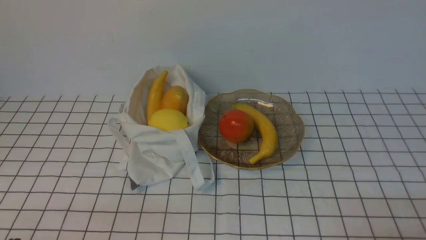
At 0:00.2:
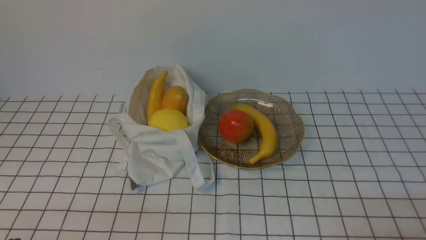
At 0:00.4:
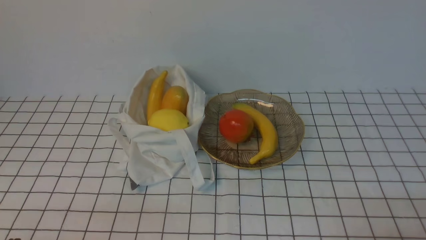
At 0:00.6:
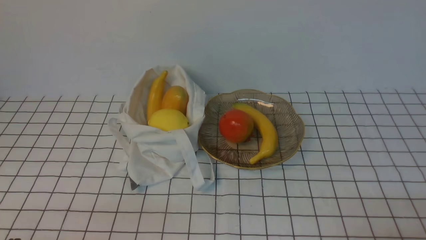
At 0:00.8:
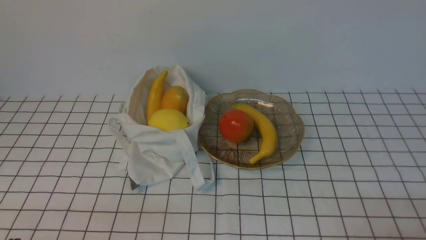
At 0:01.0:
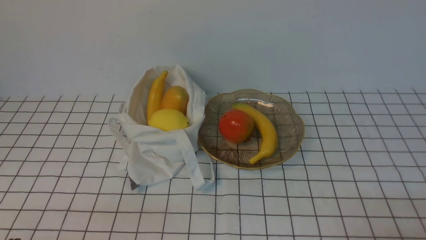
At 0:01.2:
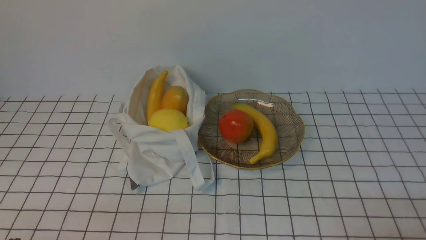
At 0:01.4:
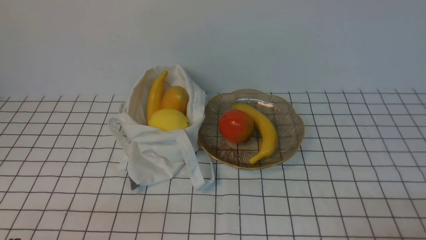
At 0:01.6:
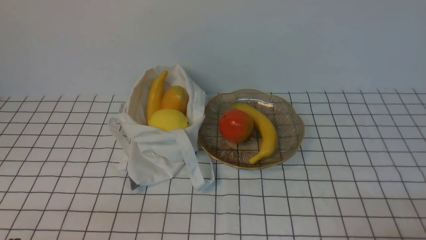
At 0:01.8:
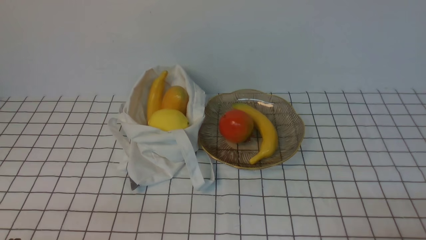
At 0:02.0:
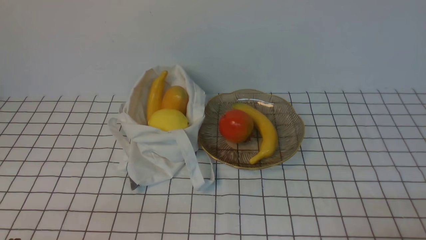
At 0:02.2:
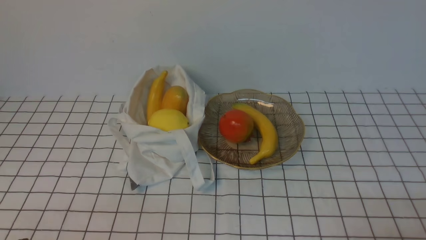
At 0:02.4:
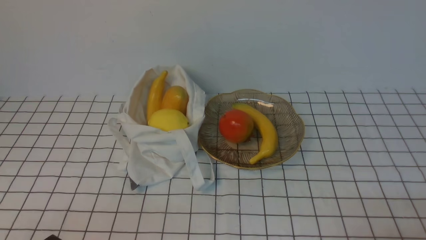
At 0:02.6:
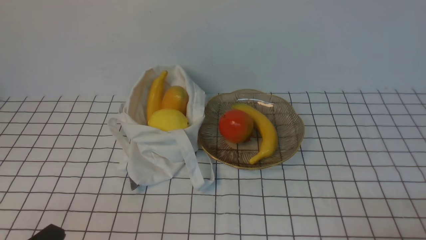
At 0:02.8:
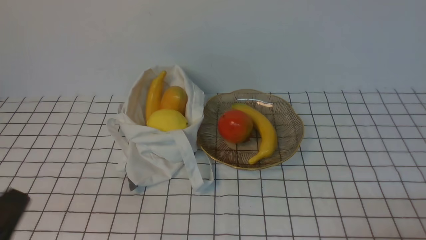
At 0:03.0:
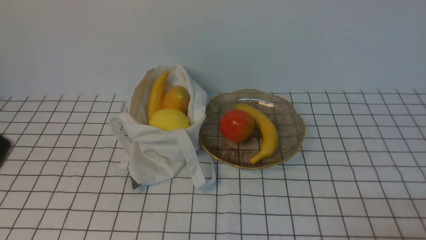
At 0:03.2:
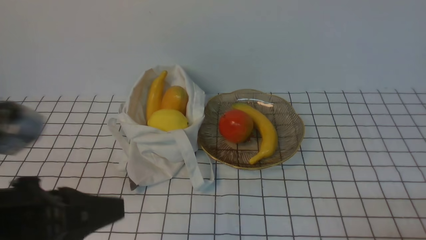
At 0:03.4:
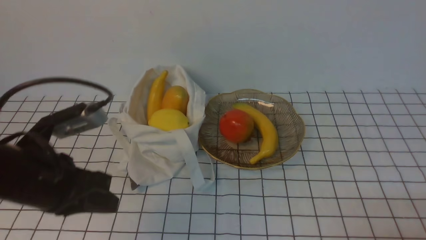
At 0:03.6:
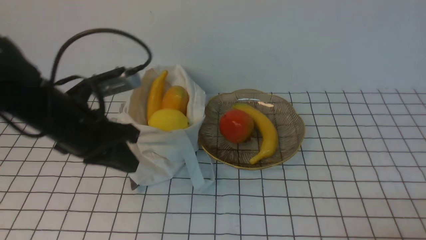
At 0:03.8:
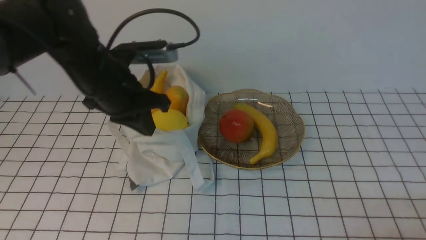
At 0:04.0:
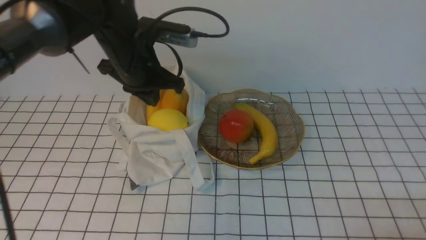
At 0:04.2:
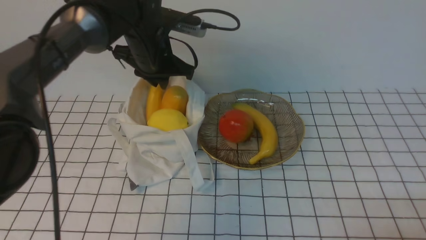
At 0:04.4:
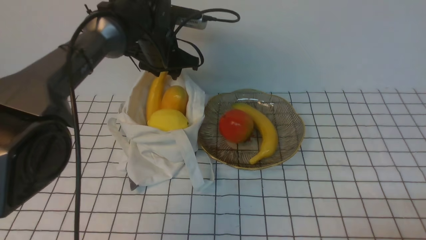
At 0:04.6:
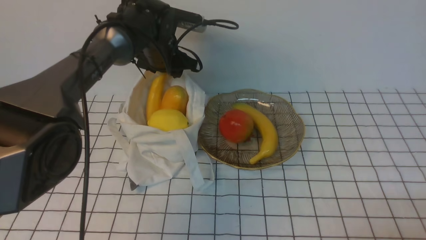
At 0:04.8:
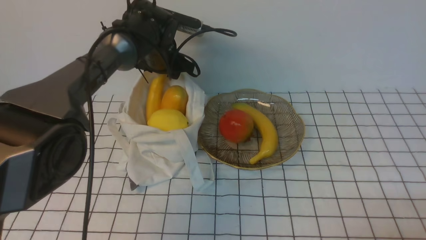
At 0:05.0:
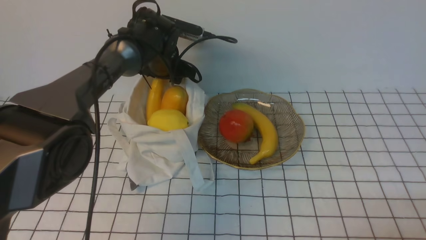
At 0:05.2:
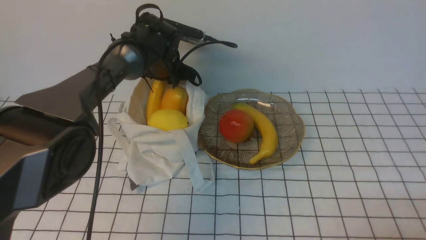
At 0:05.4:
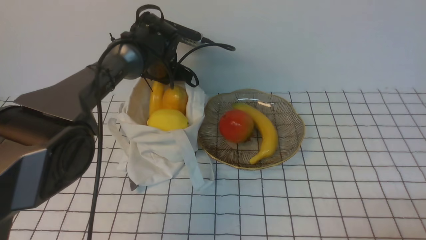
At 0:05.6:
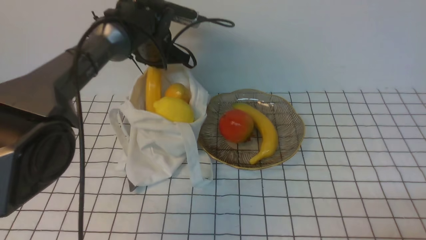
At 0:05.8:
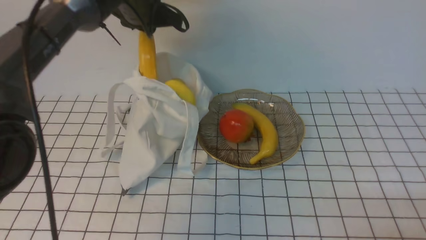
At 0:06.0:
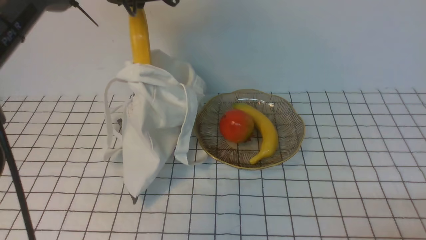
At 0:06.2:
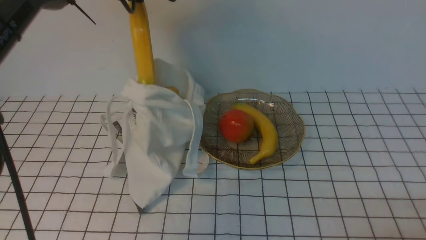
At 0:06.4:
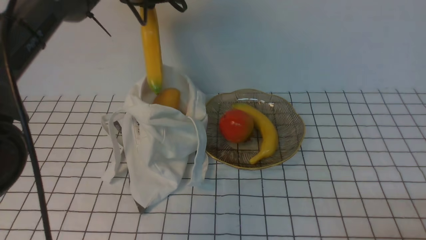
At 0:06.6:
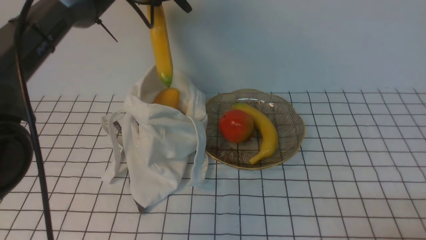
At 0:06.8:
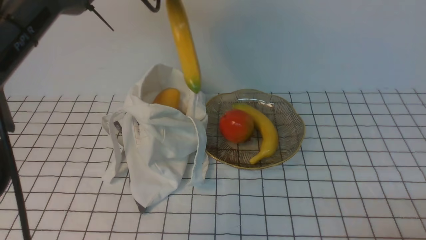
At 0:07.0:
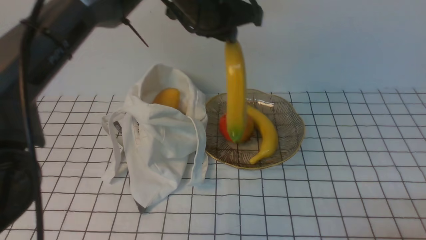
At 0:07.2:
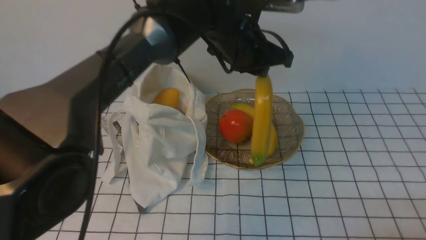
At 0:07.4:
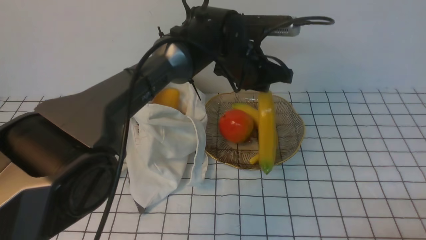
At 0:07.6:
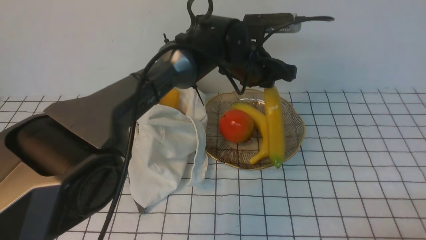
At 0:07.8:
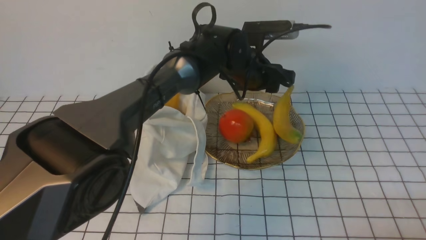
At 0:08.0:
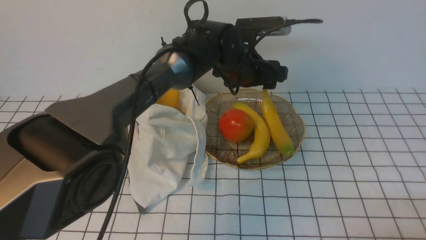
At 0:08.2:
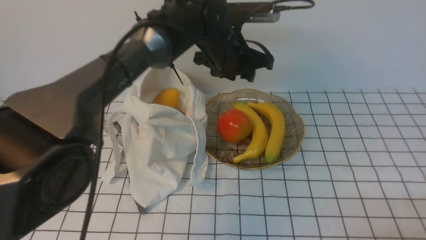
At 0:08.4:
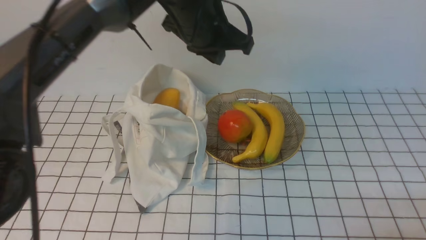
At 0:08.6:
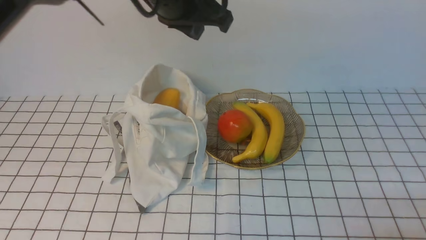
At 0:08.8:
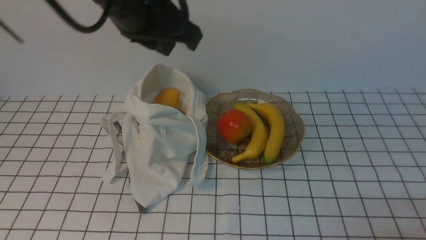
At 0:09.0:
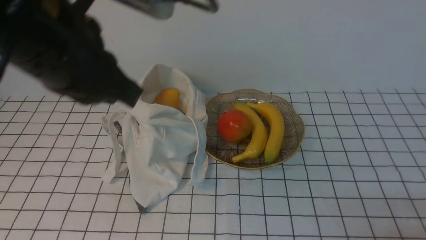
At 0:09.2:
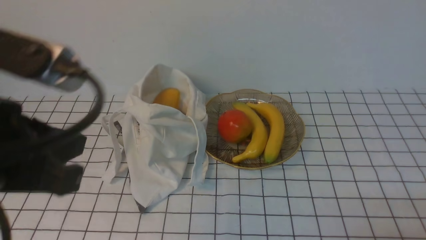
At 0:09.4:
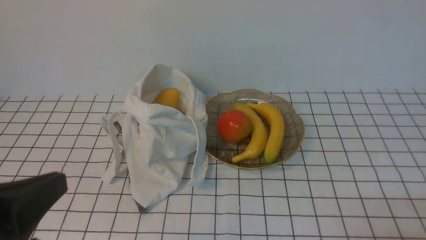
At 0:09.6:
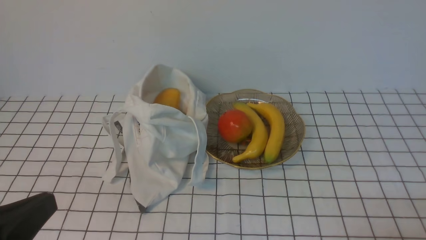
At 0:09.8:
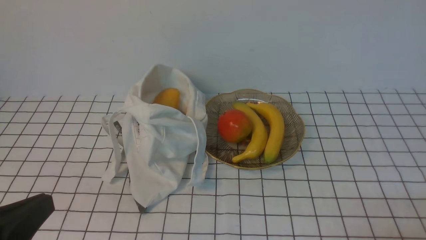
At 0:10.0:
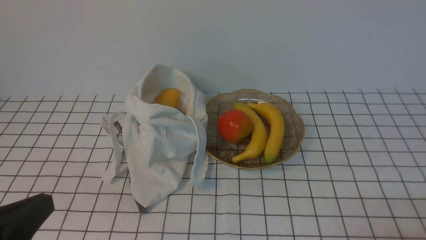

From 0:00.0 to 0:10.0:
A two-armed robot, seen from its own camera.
Step, from 0:00.0 to 0:05.6: use the left arm to grab a banana from the bag.
Step, from 0:05.8 to 0:07.8: use the left arm to put the banana into the empty plate on the right.
From 0:00.0 to 0:01.4: Both grippers stay about where they are.
From 0:01.4 to 0:02.8: The left gripper shifts some 10 cm upward.
From 0:02.8 to 0:04.2: The left gripper travels forward by approximately 40 cm, and opens up.
From 0:04.2 to 0:05.8: The left gripper travels upward by about 5 cm, and opens, then closes again.
From 0:05.8 to 0:07.2: The left gripper travels to the right by approximately 15 cm.
From 0:07.2 to 0:08.6: The left gripper is displaced upward, to the left and backward by approximately 15 cm, and opens, then closes again.
From 0:08.6 to 0:10.0: The left gripper travels backward, to the left and downward by about 35 cm.

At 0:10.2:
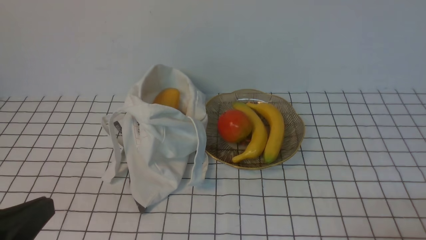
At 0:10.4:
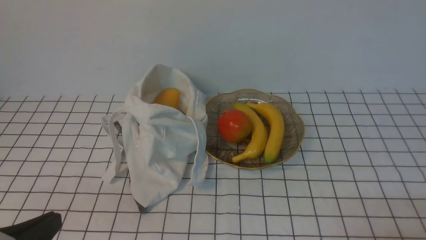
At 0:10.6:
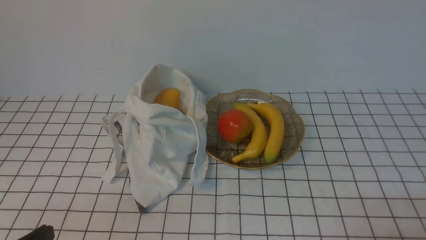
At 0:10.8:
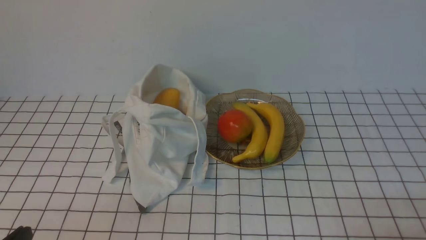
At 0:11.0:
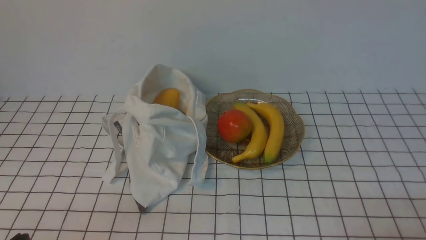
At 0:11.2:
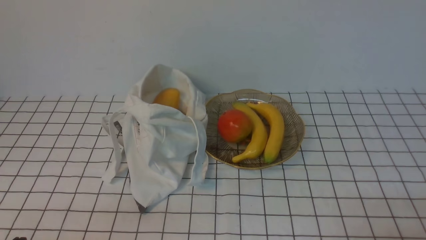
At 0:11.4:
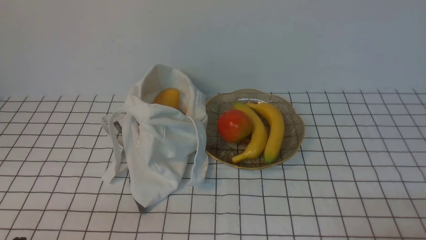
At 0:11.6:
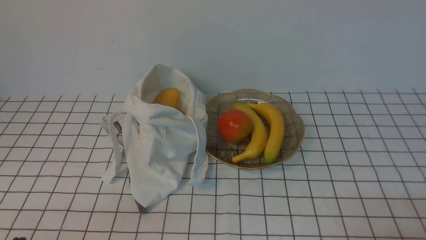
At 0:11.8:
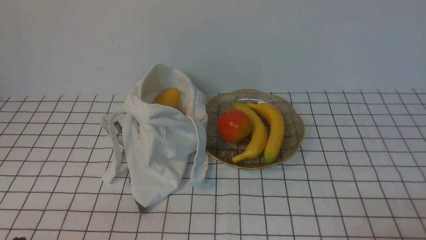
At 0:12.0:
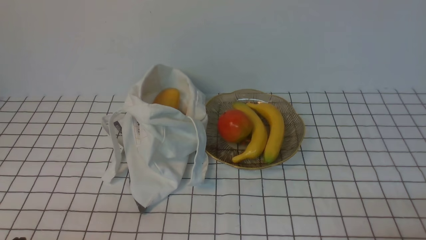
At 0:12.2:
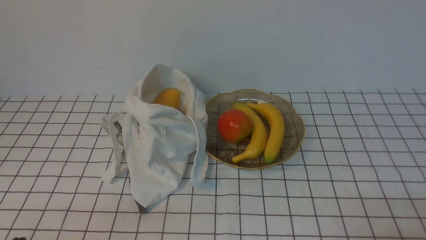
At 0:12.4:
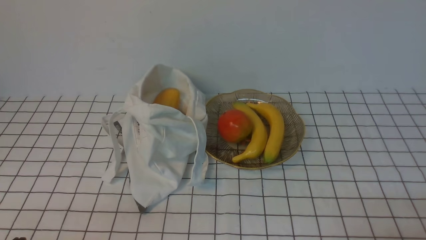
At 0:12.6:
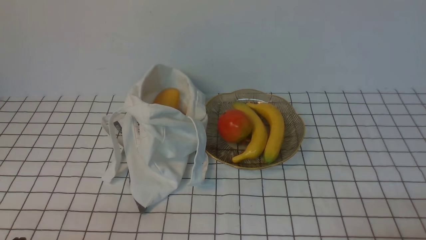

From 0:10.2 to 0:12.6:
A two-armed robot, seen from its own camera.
From 0:10.2 to 0:11.4: The left gripper travels downward by some 10 cm.
From 0:11.4 to 0:12.6: The two grippers keep their place.

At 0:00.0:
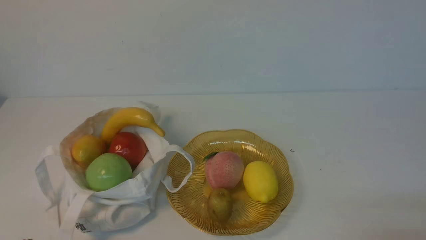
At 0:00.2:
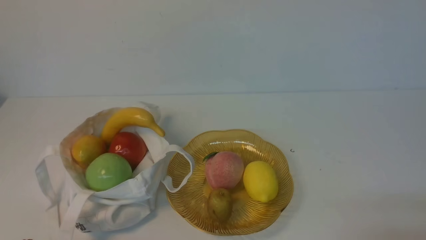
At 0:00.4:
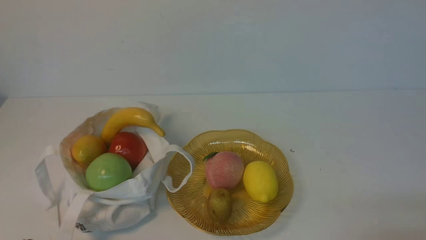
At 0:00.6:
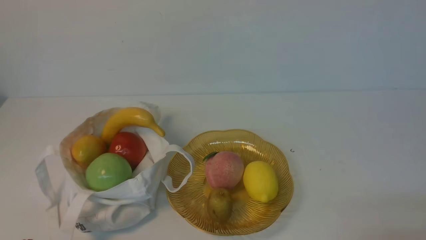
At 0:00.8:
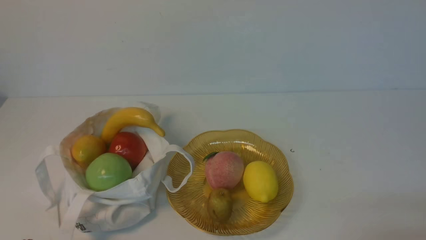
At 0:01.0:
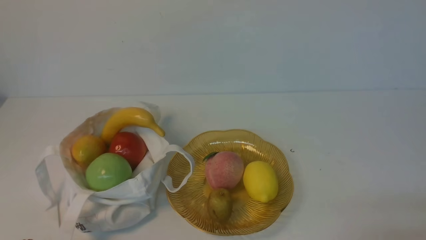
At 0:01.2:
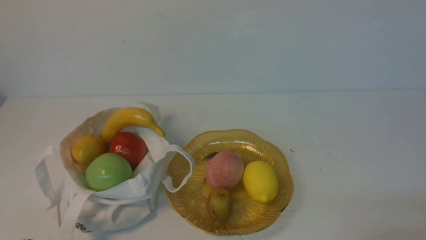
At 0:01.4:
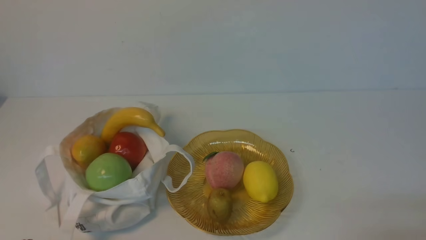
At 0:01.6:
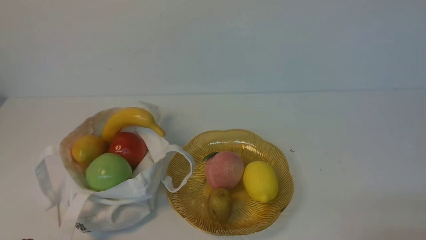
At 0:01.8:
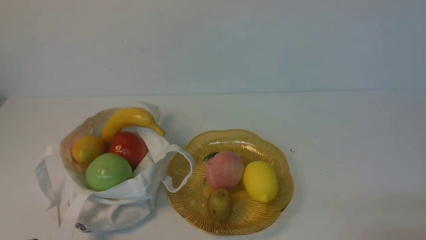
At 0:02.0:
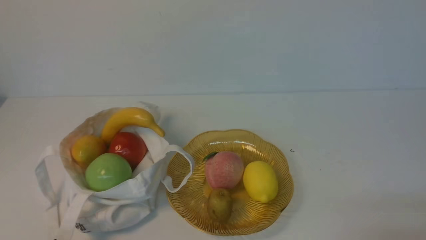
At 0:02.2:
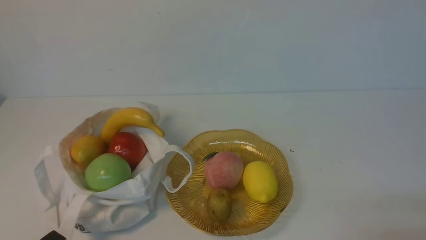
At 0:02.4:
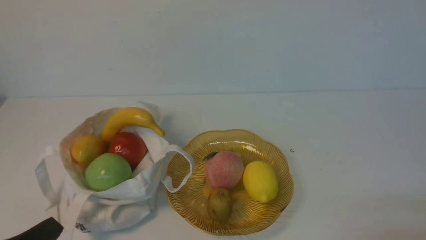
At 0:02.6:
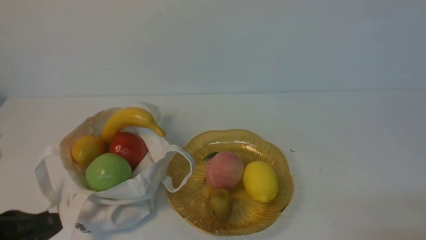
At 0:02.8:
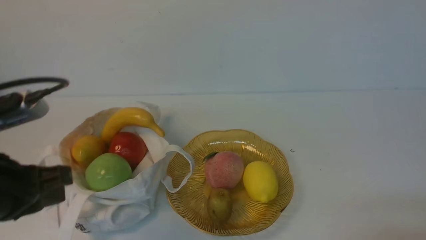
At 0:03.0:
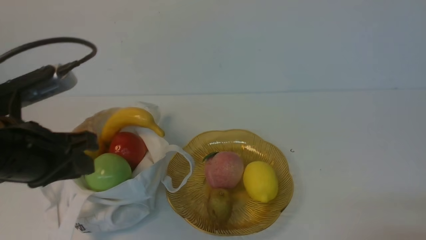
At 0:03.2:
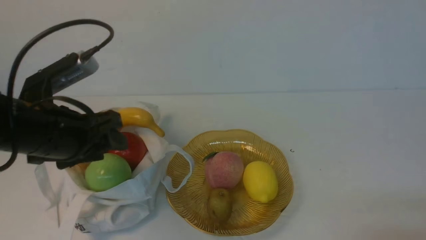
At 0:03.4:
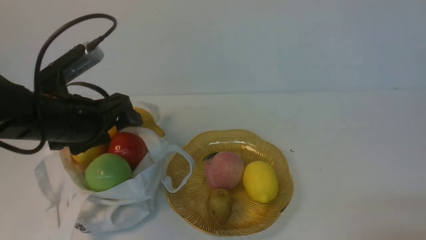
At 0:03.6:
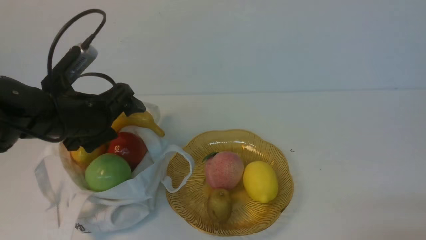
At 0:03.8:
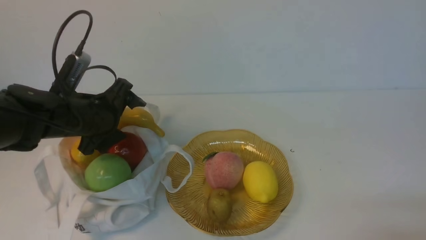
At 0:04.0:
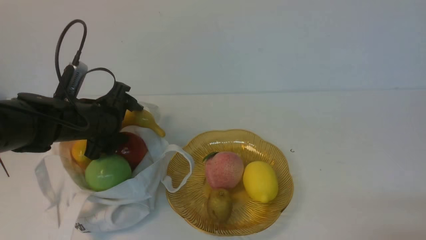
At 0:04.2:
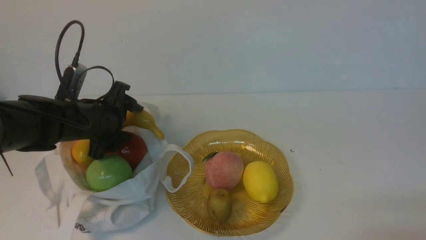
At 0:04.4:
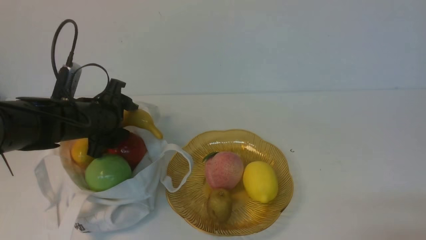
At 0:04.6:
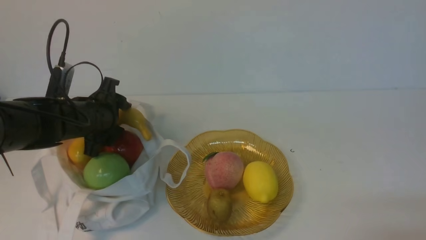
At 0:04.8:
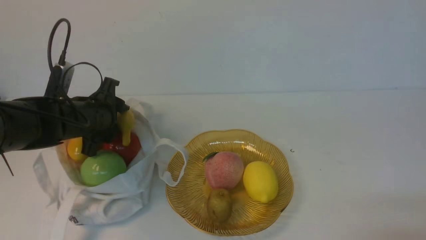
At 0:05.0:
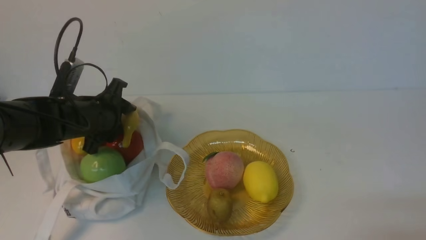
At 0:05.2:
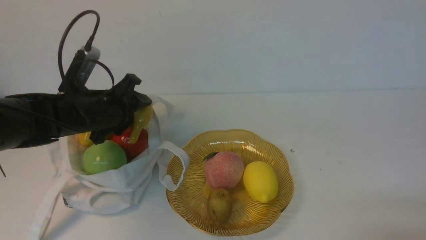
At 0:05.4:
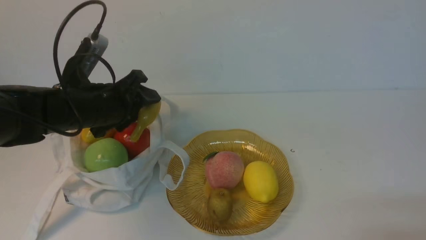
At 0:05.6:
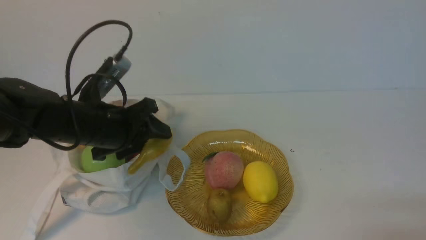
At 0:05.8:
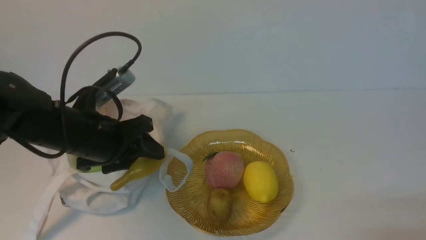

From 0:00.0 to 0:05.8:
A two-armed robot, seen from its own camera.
Step, from 0:00.0 to 0:05.6: use the left arm to grab a banana from the bag.
From 0:00.0 to 0:01.4: Neither gripper changes place.
From 0:01.4 to 0:02.8: The left gripper travels upward and forward by about 15 cm.
From 0:02.8 to 0:04.4: The left gripper is displaced forward and downward by some 25 cm, and opens its fingers.
From 0:04.4 to 0:05.8: The left gripper goes some 10 cm backward and upward.
